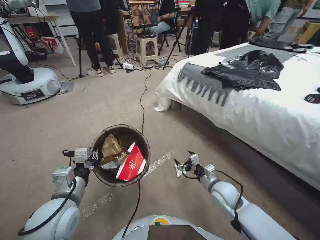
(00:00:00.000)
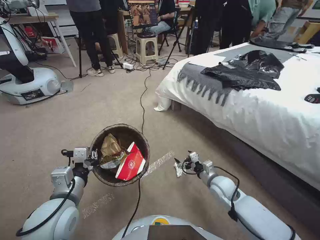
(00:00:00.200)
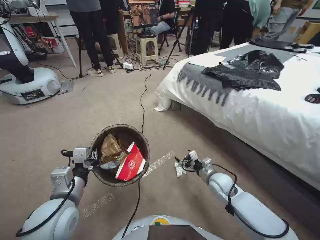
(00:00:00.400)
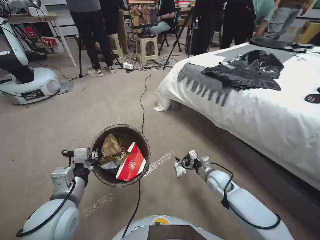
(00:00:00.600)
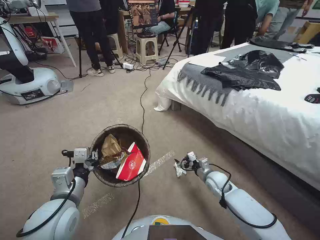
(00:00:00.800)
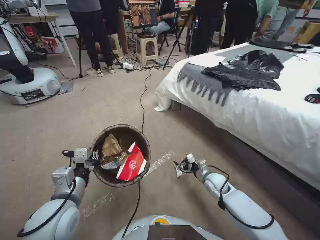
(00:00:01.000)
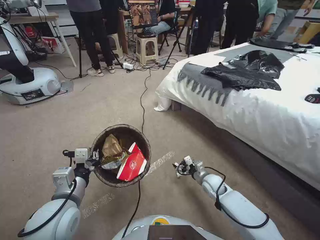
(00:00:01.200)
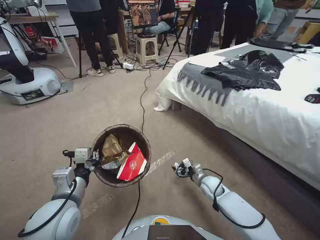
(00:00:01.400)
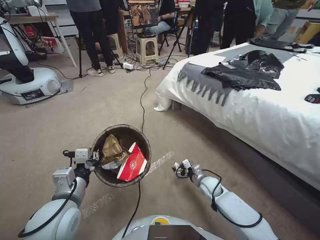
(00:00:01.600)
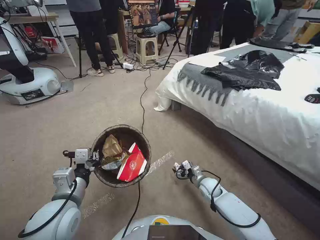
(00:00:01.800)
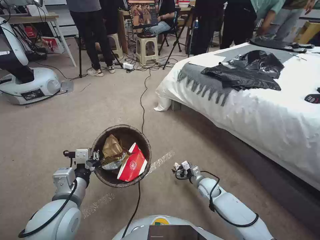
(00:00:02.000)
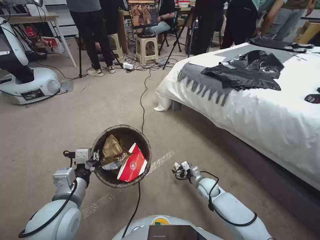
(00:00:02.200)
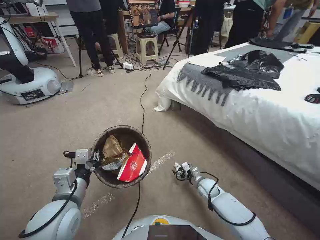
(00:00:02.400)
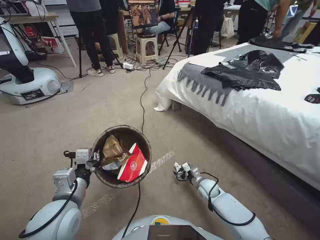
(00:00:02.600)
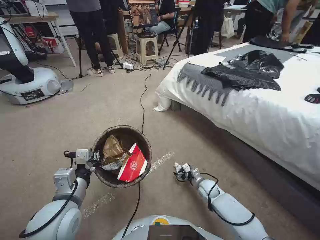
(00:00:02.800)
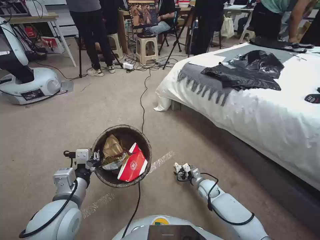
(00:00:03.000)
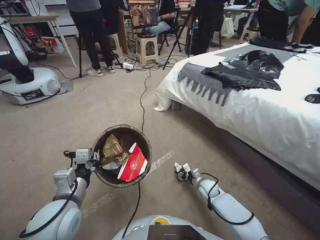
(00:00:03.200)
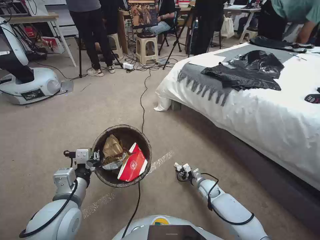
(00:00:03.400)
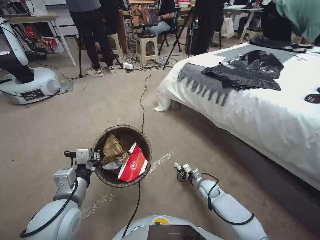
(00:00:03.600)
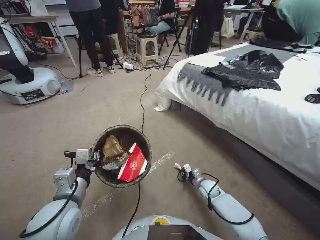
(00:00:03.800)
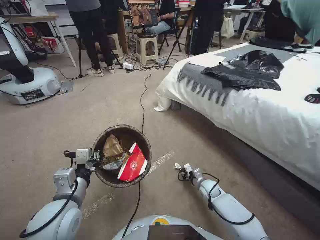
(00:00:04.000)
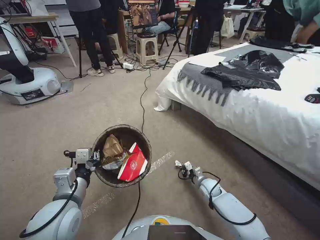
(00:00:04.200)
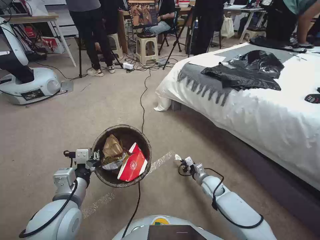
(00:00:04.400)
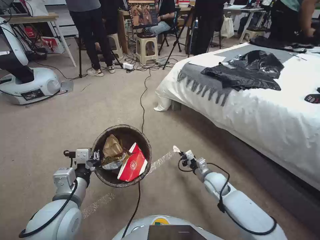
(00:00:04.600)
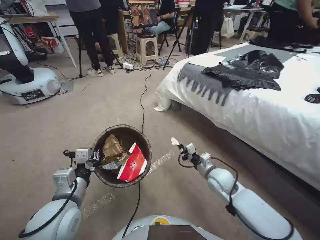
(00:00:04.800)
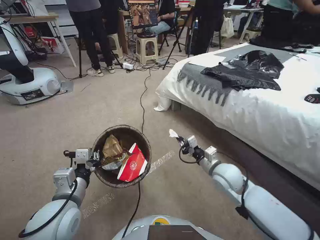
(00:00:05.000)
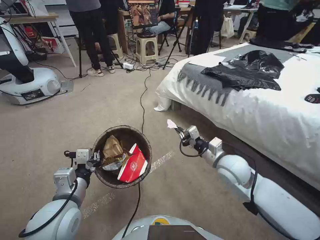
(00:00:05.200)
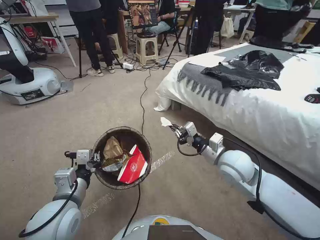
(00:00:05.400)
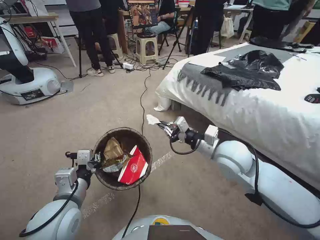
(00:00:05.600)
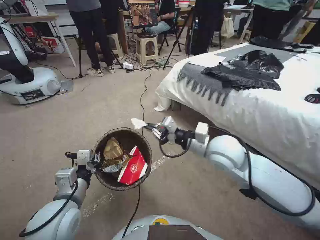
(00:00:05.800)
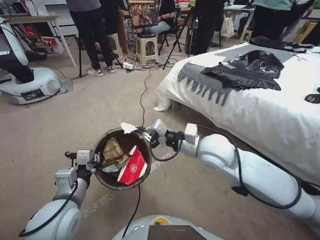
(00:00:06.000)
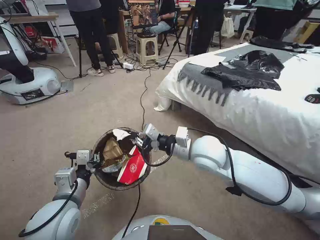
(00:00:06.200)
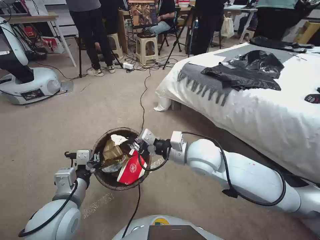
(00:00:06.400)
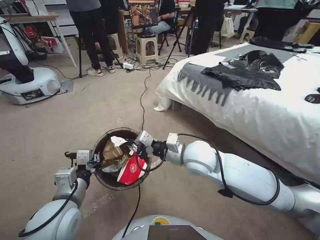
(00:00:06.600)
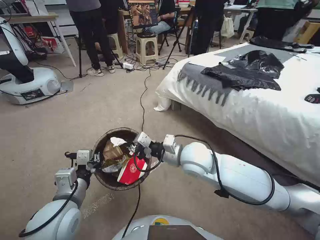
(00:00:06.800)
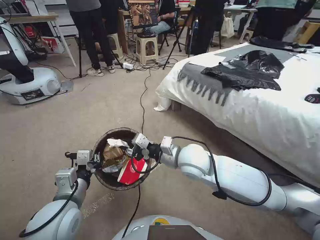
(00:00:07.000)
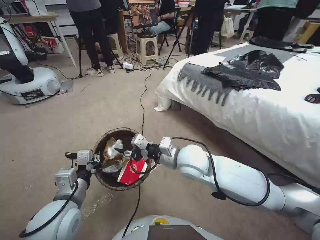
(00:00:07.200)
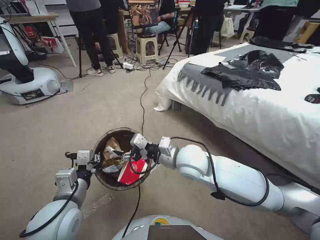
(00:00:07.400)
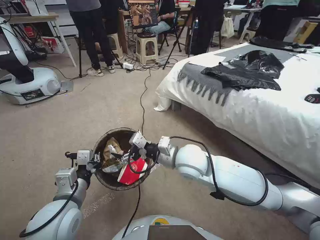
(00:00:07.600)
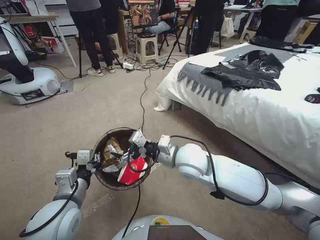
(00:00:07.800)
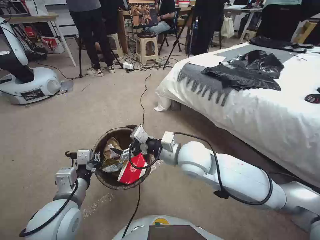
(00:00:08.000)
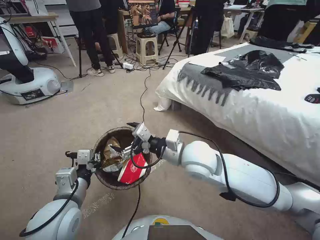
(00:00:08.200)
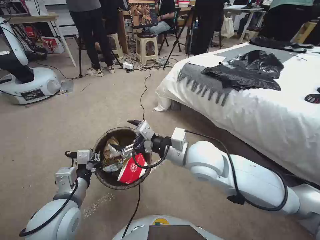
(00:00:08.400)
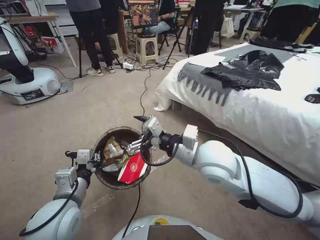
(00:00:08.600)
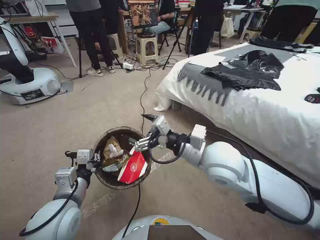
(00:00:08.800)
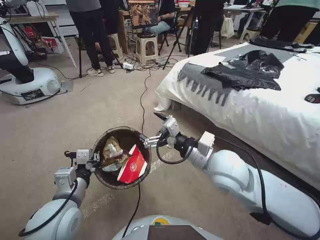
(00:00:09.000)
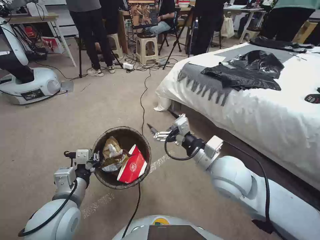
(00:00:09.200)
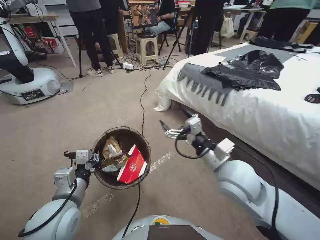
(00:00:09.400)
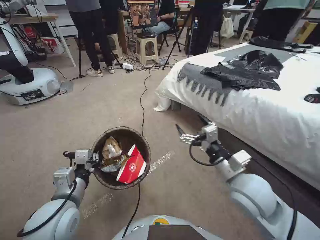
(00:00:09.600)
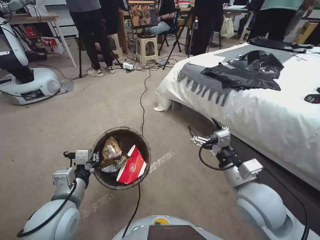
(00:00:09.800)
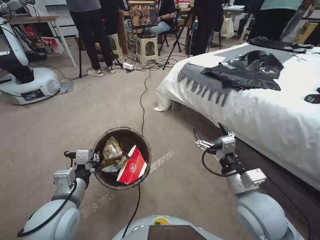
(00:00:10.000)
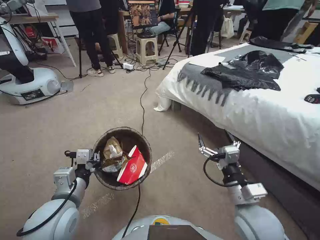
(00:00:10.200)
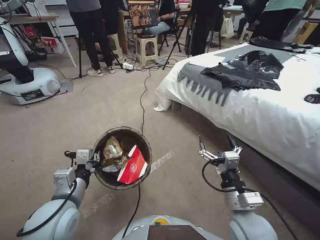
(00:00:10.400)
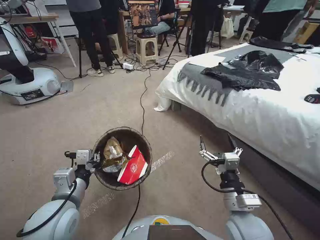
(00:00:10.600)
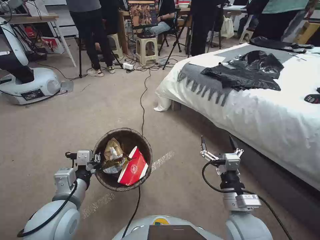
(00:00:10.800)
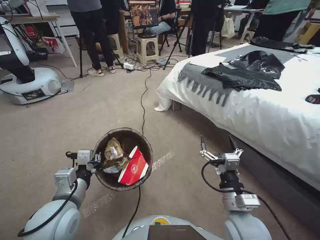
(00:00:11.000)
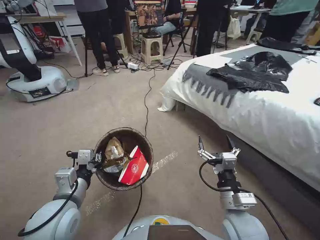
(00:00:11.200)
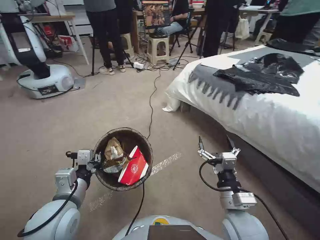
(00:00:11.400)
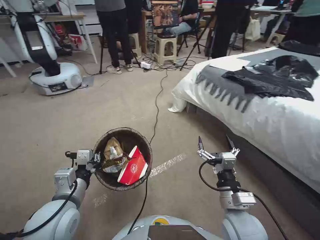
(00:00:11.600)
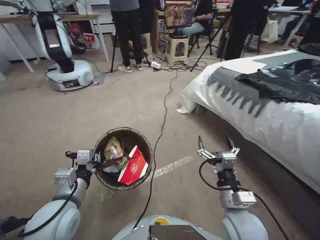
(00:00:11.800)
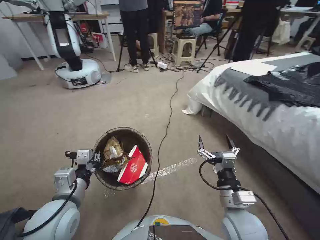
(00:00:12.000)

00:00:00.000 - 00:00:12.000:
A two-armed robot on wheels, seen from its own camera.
Task of the whole recording: Pick up the trash bin, then pick up the garbage from the floor and place it into the trash bin.
00:00:00.000 - 00:00:01.600: The right gripper moves downward and forward, some 15 cm.
00:00:01.600 - 00:00:03.000: The grippers move only a little.
00:00:03.000 - 00:00:04.400: The right gripper closes up.
00:00:04.400 - 00:00:06.000: The right gripper goes some 35 cm upward.
00:00:06.000 - 00:00:07.600: The right gripper goes approximately 5 cm to the left, and opens up.
00:00:07.600 - 00:00:09.000: The right gripper is displaced to the right and upward by approximately 10 cm.
00:00:09.000 - 00:00:10.400: The right gripper goes some 20 cm downward, backward and to the right.

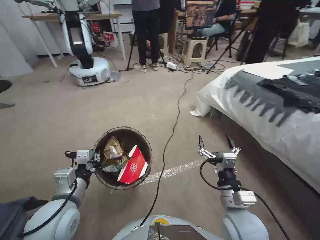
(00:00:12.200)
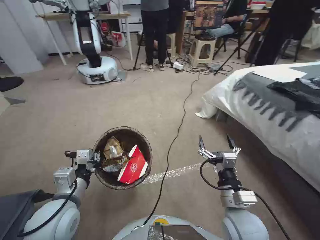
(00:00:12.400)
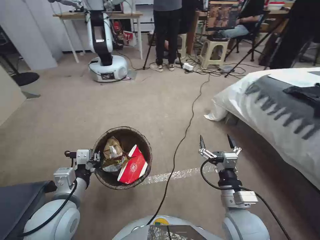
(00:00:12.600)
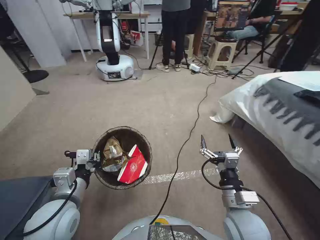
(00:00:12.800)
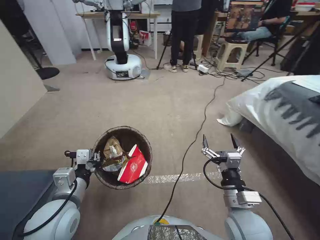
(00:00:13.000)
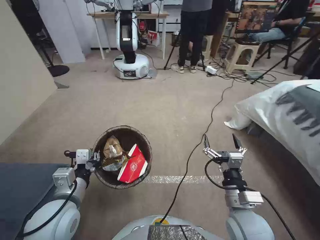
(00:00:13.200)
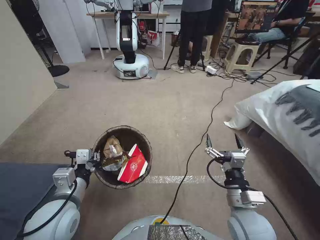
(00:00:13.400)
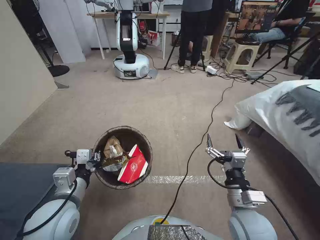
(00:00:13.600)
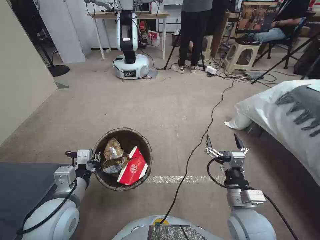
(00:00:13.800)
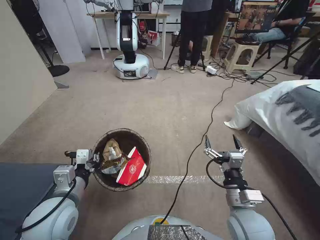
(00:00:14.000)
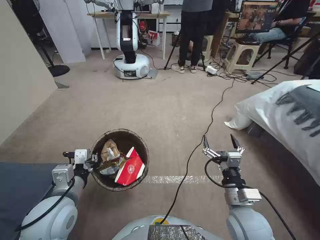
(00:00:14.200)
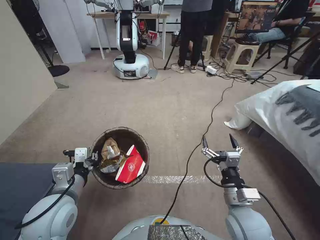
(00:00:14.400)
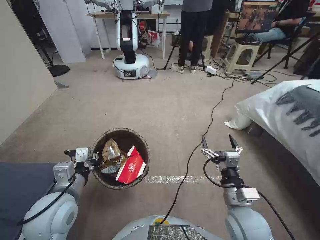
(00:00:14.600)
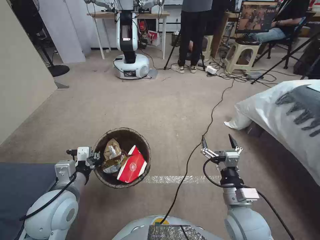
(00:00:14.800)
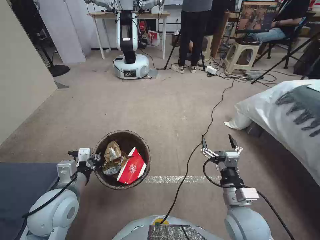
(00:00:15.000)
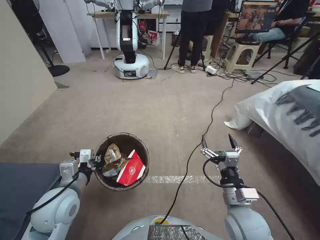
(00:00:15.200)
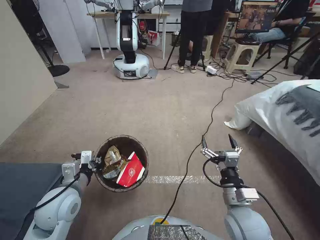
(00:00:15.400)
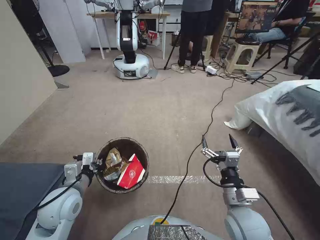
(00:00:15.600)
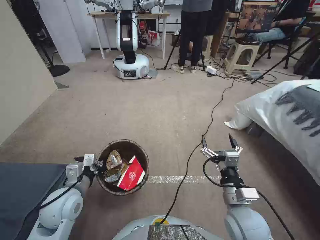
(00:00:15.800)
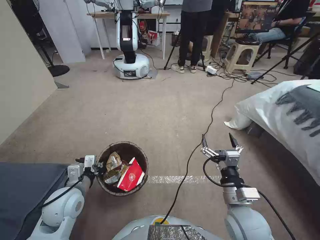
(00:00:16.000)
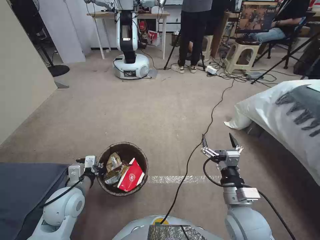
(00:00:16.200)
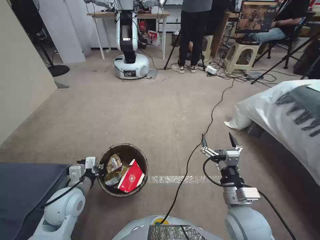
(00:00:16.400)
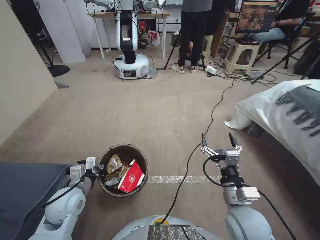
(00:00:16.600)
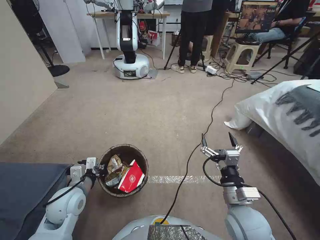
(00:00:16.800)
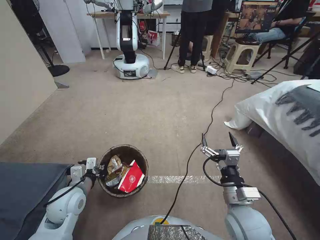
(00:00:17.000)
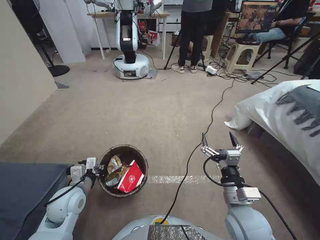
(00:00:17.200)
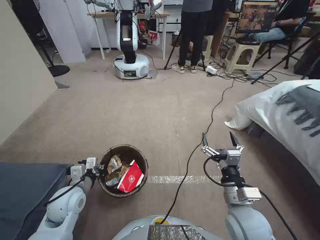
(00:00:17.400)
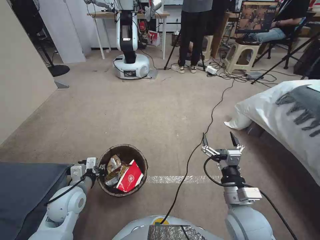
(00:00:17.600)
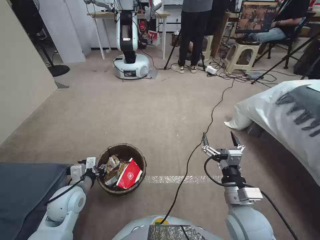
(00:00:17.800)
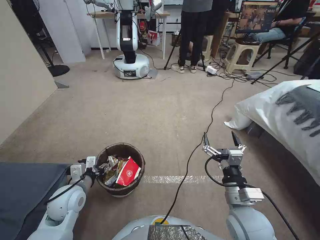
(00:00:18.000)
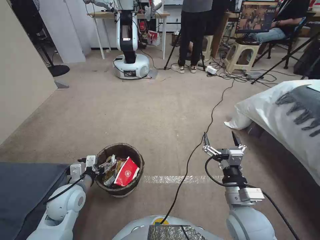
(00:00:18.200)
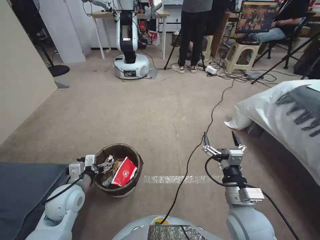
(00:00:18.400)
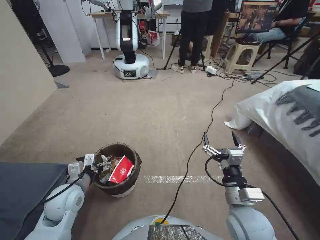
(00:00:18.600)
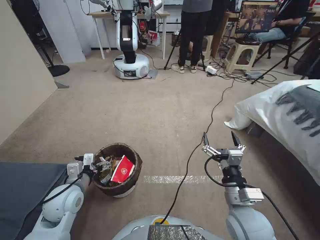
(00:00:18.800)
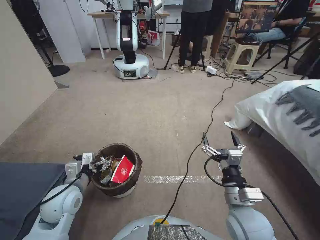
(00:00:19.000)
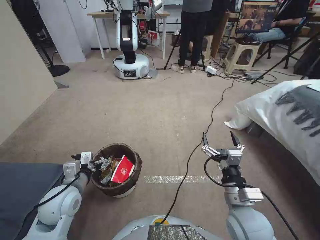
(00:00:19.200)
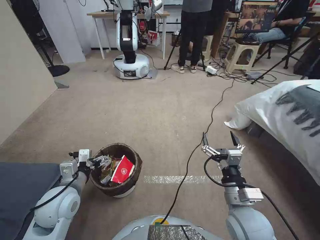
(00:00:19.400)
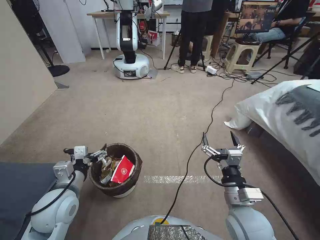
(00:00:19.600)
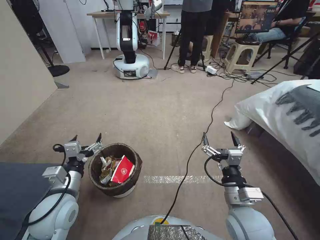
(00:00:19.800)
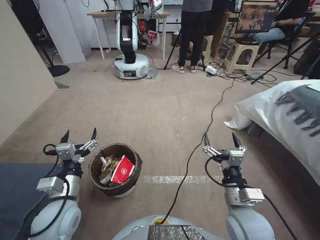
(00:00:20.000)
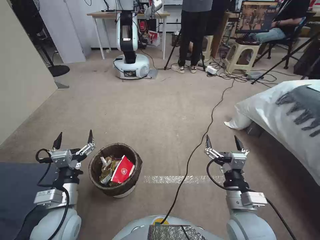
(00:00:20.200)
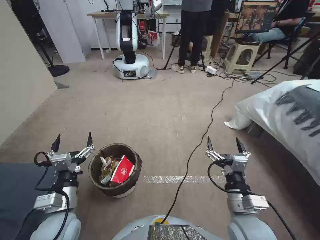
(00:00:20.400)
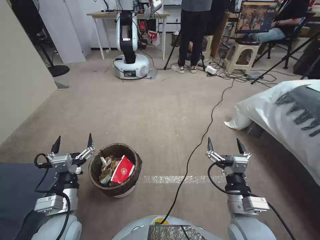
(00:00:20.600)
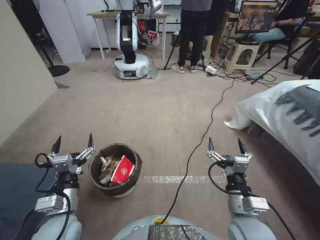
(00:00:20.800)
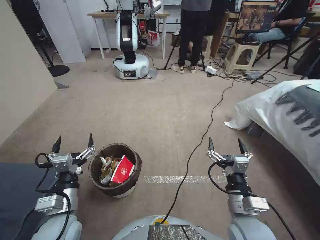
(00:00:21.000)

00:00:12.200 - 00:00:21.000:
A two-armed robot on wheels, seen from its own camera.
Task of the whole recording: Pick up the trash bin, then pick up the garbage from the floor and place it into the trash bin.
00:00:13.600 - 00:00:15.200: The grippers stay close to where they were, moving slightly.
00:00:15.200 - 00:00:16.600: The left gripper moves downward, some 5 cm.
00:00:16.600 - 00:00:18.000: The left gripper opens its fingers.
00:00:18.000 - 00:00:19.600: The left gripper moves upward, approximately 5 cm, and opens up.
00:00:19.600 - 00:00:21.000: The left gripper travels backward by roughly 5 cm.
